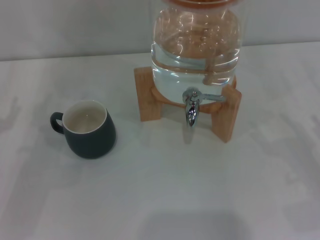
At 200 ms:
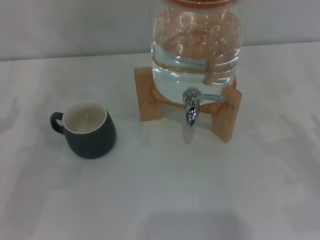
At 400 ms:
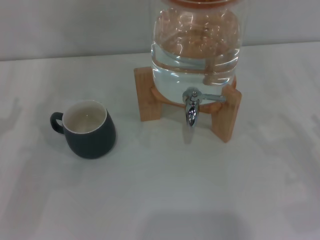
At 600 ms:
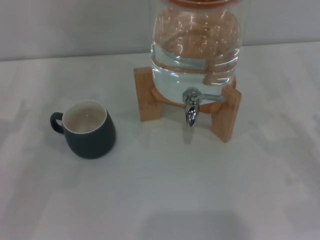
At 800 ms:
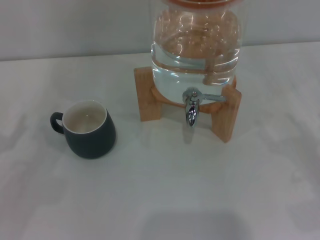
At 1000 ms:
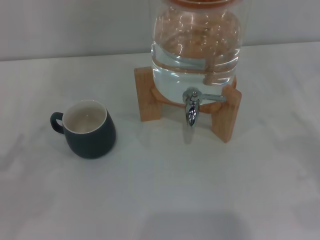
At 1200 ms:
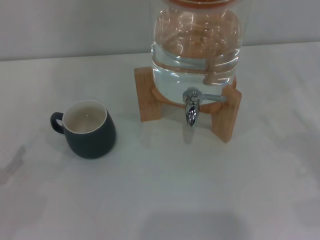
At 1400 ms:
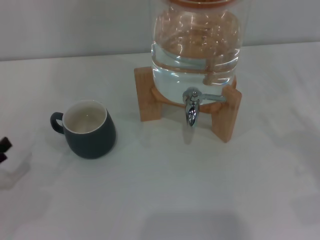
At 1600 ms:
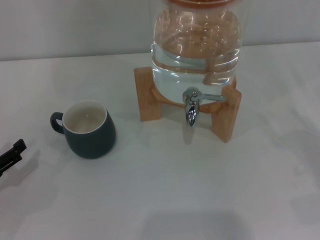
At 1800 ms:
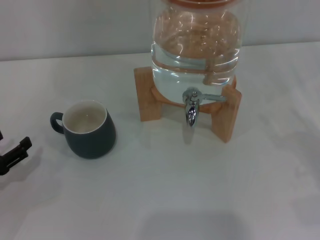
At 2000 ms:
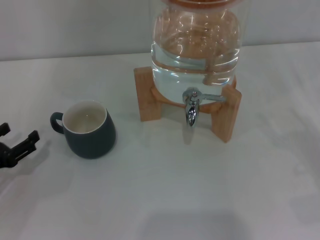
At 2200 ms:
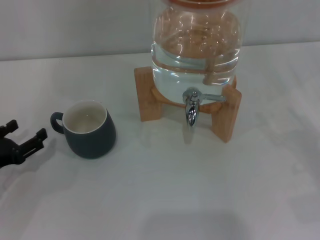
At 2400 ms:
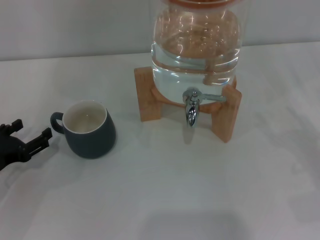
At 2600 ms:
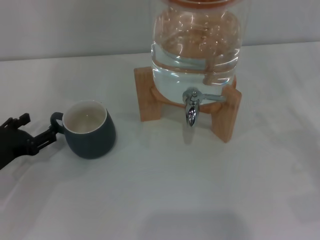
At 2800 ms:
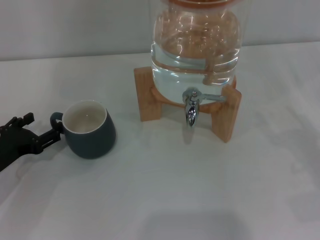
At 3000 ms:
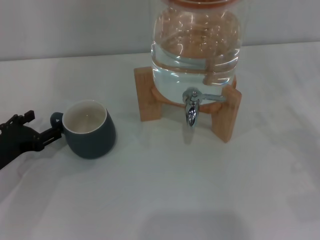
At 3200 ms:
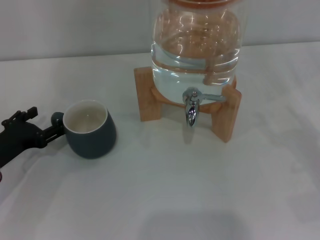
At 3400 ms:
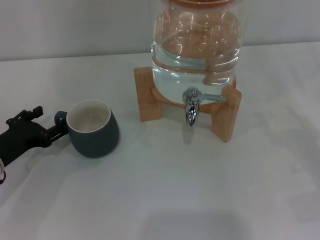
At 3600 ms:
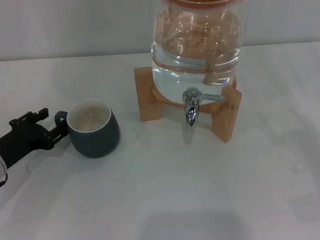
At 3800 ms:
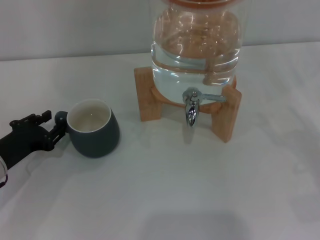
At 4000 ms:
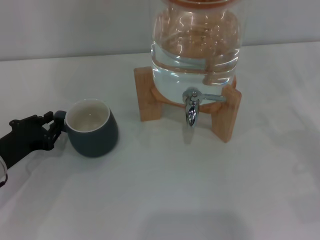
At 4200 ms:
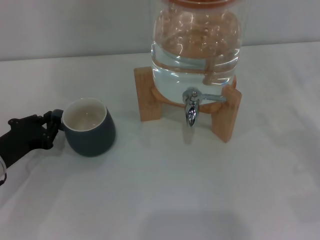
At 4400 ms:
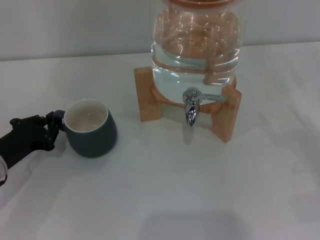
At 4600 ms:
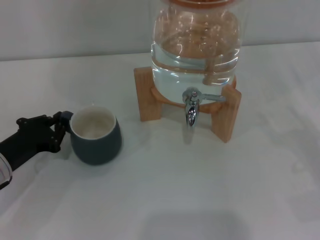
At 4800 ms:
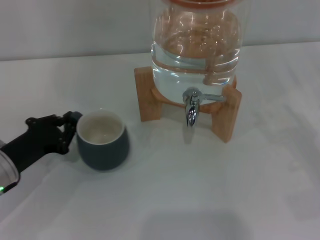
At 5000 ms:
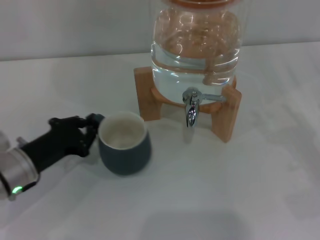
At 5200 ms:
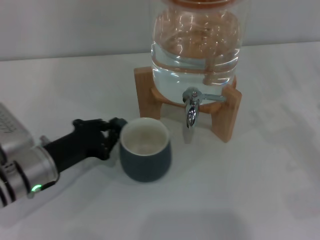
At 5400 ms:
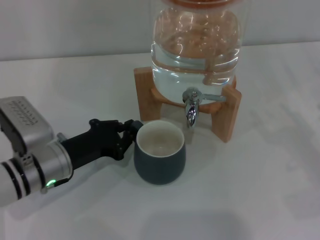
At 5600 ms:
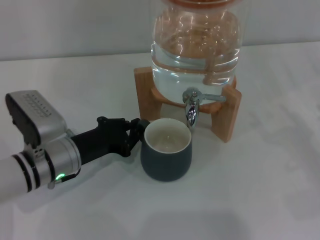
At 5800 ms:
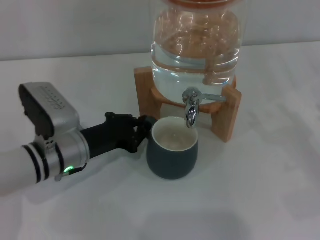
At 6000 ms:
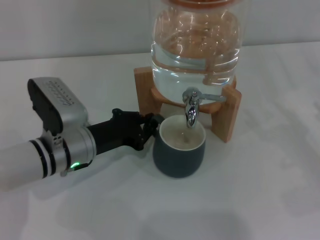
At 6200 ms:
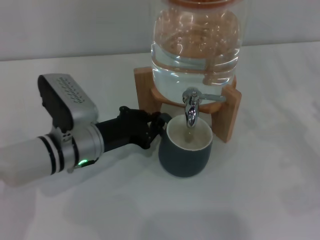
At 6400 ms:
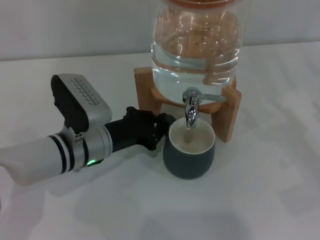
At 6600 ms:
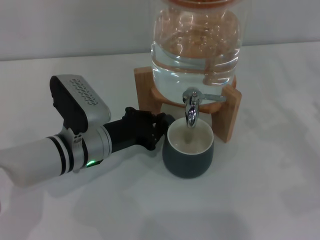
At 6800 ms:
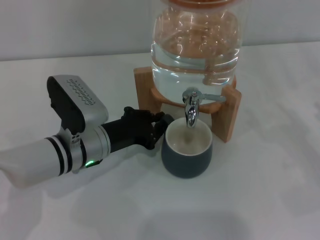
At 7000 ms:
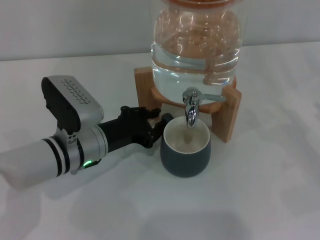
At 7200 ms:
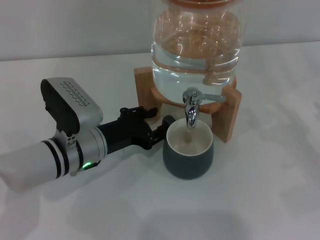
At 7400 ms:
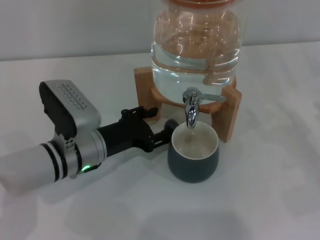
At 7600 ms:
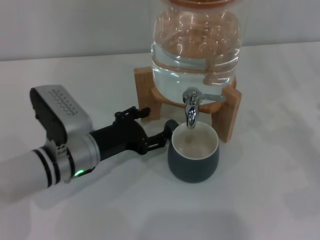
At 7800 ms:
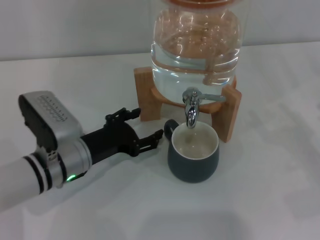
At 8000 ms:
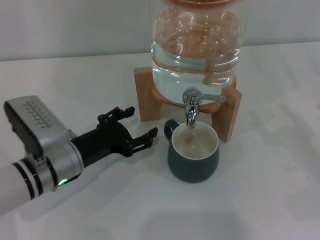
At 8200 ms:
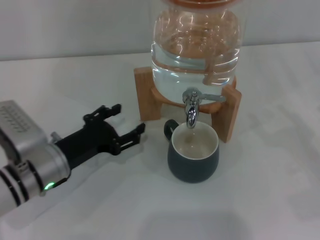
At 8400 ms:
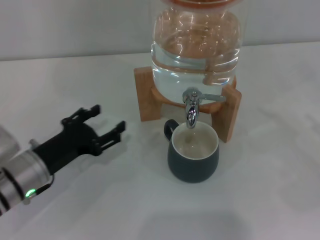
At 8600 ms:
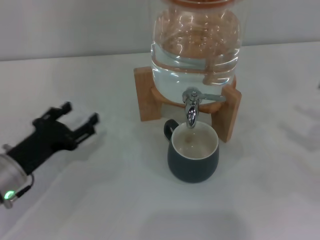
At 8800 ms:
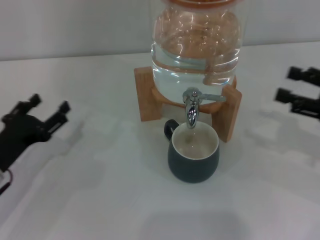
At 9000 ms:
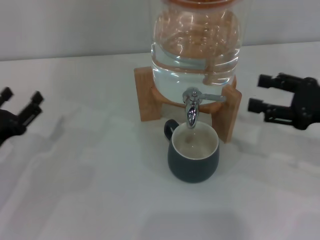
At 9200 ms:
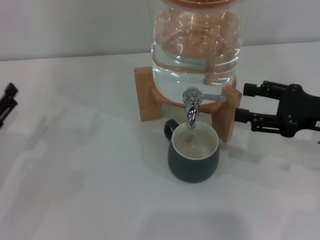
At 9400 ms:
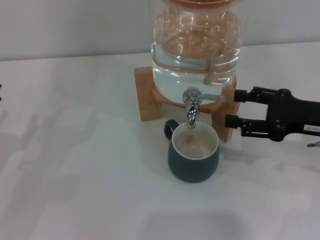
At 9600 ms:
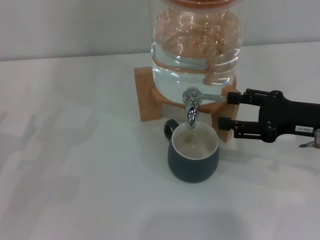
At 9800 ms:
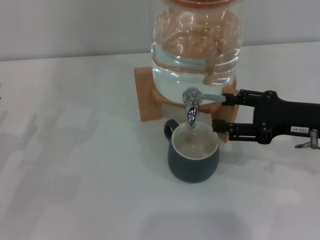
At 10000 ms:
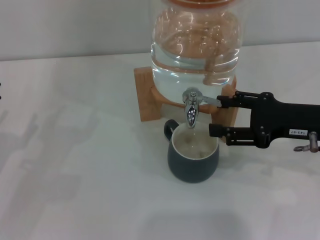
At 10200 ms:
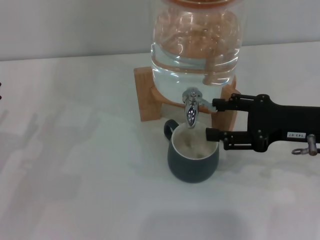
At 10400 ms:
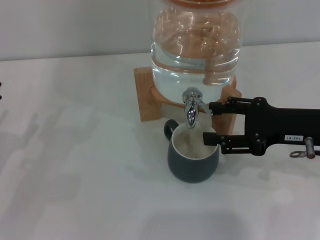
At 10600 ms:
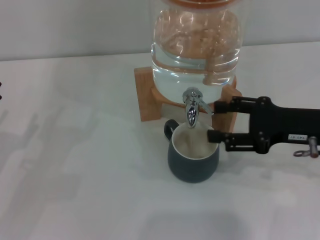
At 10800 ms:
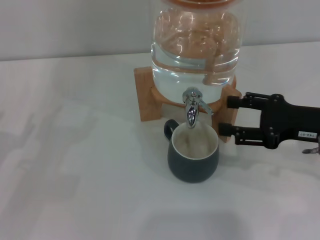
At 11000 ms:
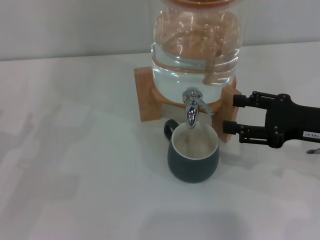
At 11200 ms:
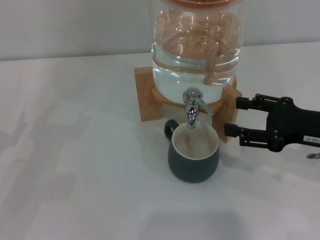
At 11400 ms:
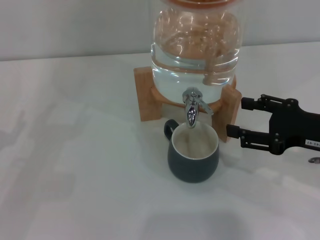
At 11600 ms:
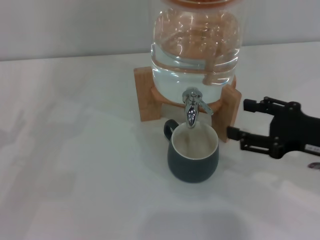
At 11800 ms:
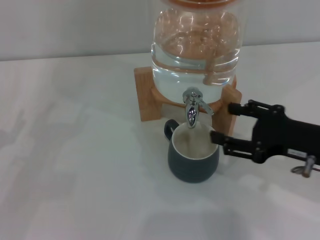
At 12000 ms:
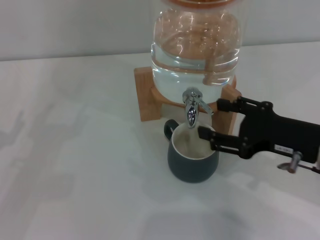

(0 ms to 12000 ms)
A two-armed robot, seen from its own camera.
Task of the whole recording: the left gripper pick up the black cup and place it horizontally under the faucet, the right gripper turn on the faucet to fill the cup, and then turn off the faucet.
Step, 0 ms - 8000 ms: Move the cup beneath the water dispenser nozzle with the left gripper.
0 ms - 1600 ms: The left gripper moves backward, roughly 5 cm.
1600 ms - 3000 ms: The left gripper goes approximately 10 cm forward and to the right.
3000 ms - 4400 ms: The left gripper closes up.
4400 ms - 6000 ms: The left gripper heads to the right, covering some 15 cm.
6000 ms - 7600 ms: The left gripper opens.
7600 ms - 9000 ms: The left gripper is displaced to the left by some 15 cm; the right gripper heads upward, to the left and forward, covering roughly 10 cm.
9000 ms - 10400 ms: The right gripper is displaced to the left by about 5 cm.
10400 ms - 12000 ms: The right gripper ends up some 5 cm from where it was.

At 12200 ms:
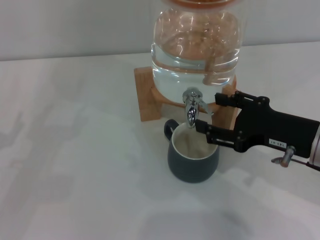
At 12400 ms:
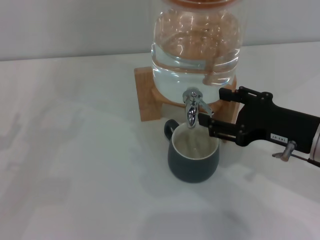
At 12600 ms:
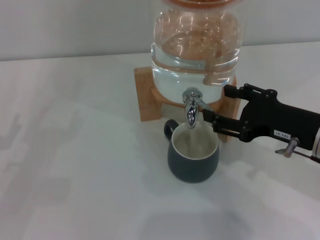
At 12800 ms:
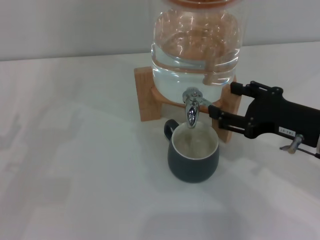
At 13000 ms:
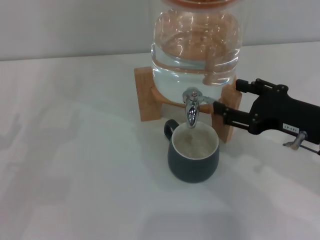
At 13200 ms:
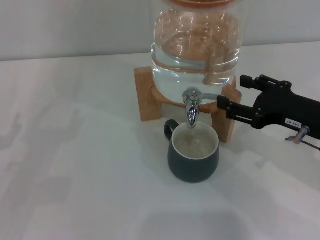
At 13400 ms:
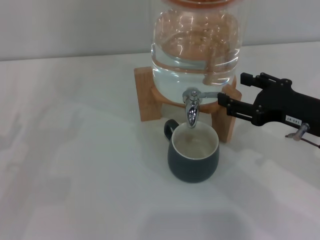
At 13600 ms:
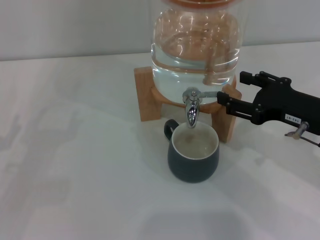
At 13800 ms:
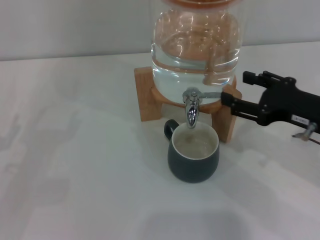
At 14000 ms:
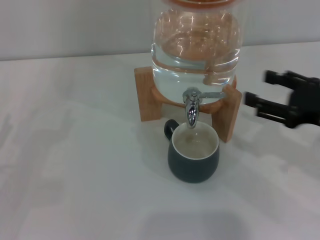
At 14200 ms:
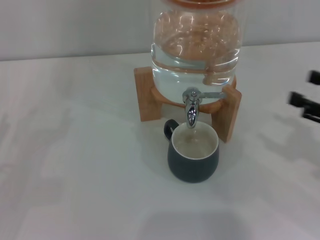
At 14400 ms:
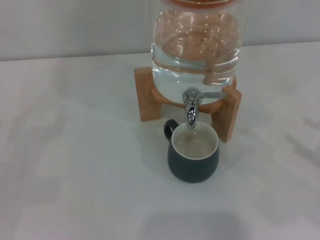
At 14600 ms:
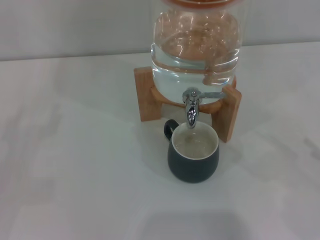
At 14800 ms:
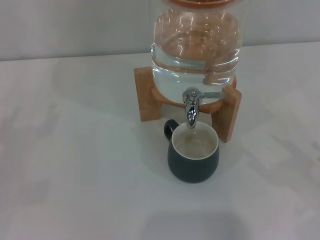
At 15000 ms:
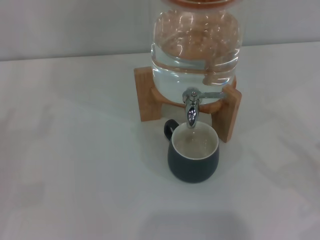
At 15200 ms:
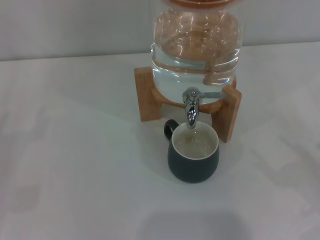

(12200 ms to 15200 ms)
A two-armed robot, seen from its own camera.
Task of the whole recording: the left gripper pick up the black cup and place it horizontally under the faucet, the right gripper turn on the faucet to fill the cup, and then turn off the faucet.
Step, 12400 ms - 13800 ms: Close the dispenser valve with the right gripper.
12200 ms - 13800 ms: The grippers make only small movements.
13800 ms - 15200 ms: The right gripper goes some 20 cm to the right, backward and downward.
